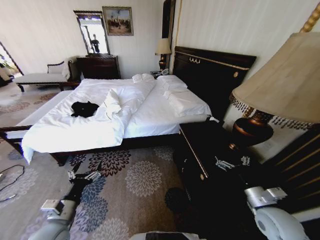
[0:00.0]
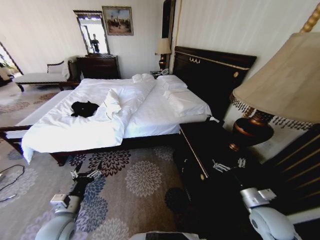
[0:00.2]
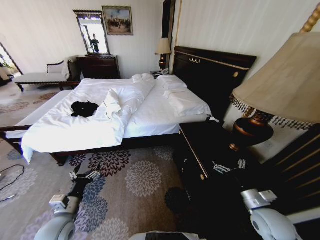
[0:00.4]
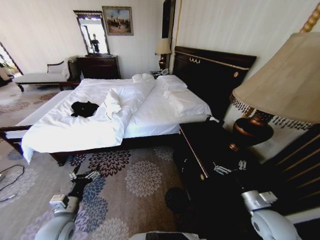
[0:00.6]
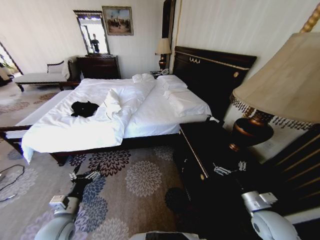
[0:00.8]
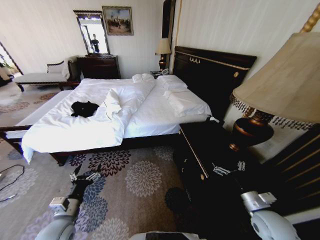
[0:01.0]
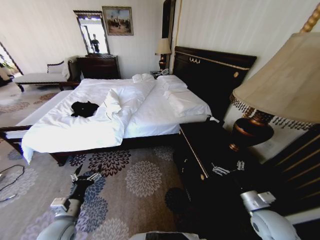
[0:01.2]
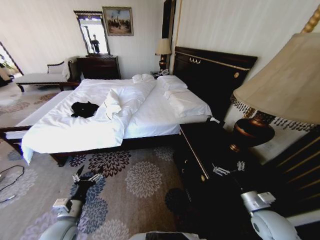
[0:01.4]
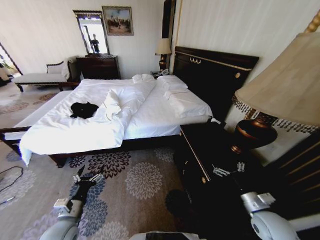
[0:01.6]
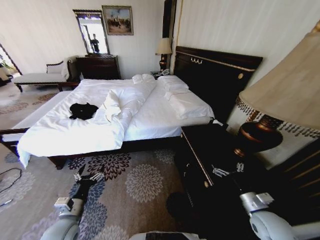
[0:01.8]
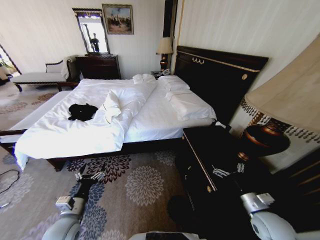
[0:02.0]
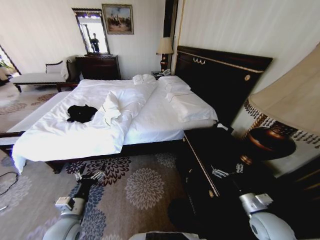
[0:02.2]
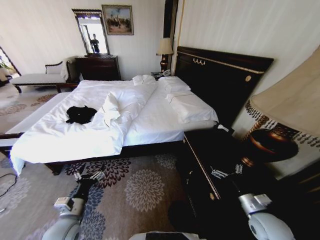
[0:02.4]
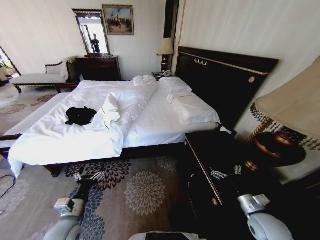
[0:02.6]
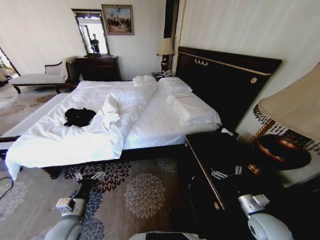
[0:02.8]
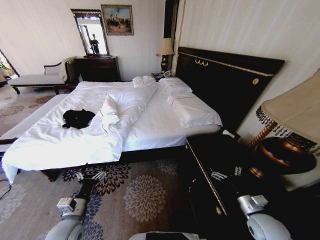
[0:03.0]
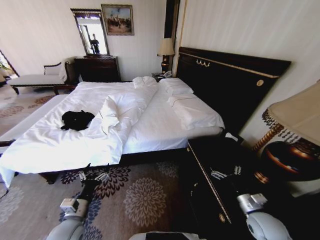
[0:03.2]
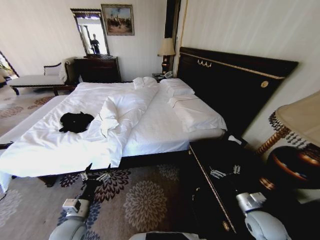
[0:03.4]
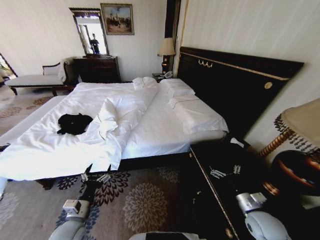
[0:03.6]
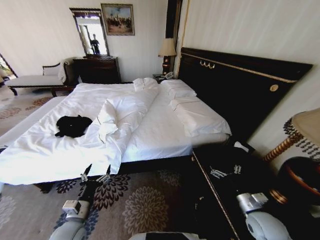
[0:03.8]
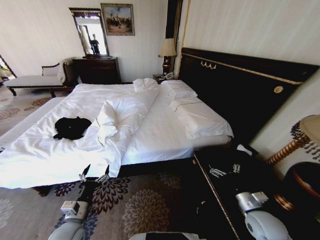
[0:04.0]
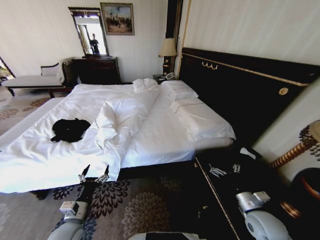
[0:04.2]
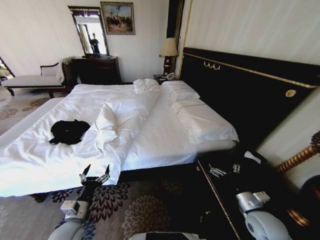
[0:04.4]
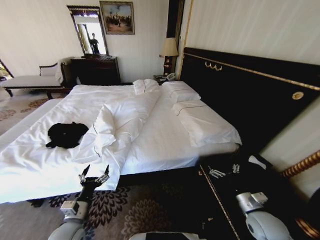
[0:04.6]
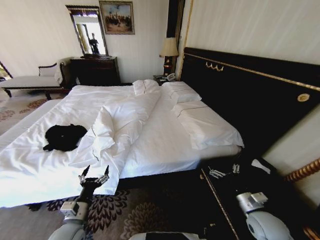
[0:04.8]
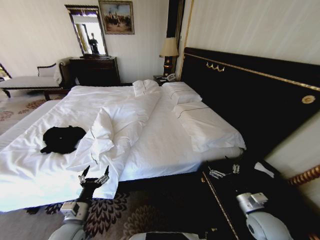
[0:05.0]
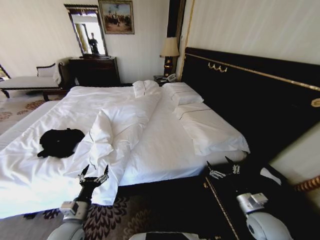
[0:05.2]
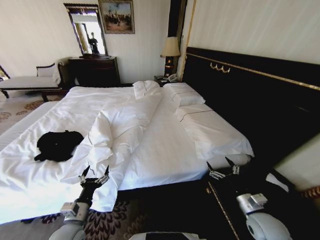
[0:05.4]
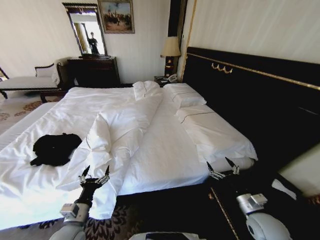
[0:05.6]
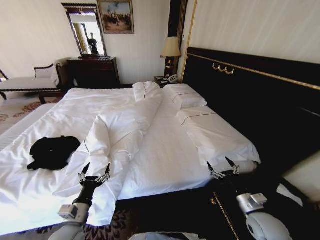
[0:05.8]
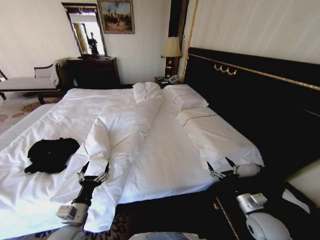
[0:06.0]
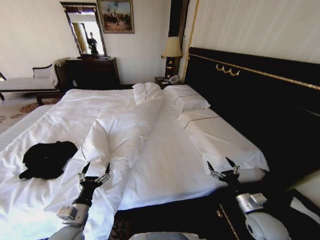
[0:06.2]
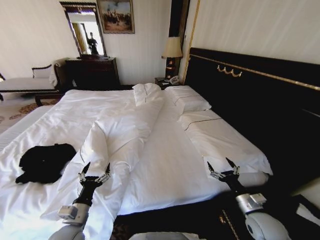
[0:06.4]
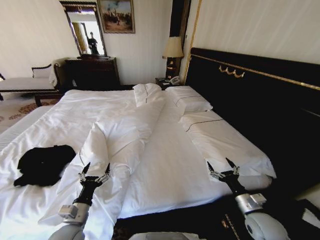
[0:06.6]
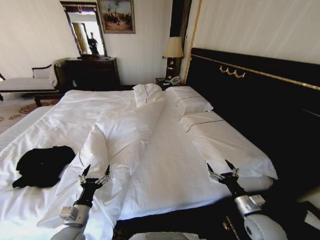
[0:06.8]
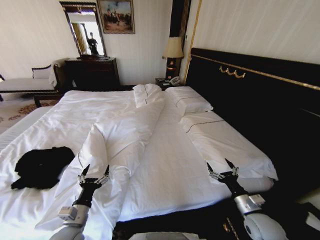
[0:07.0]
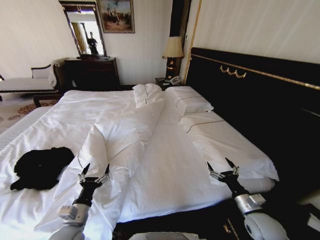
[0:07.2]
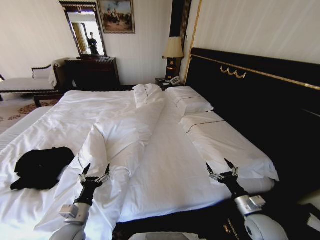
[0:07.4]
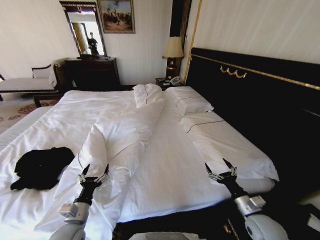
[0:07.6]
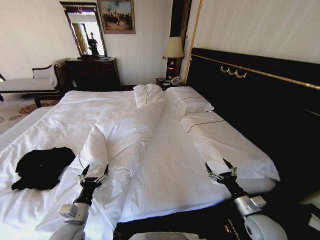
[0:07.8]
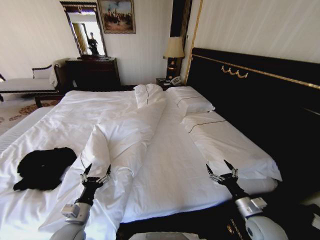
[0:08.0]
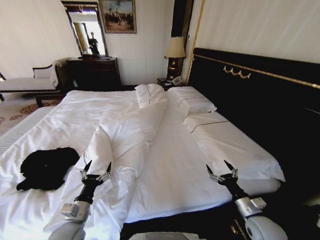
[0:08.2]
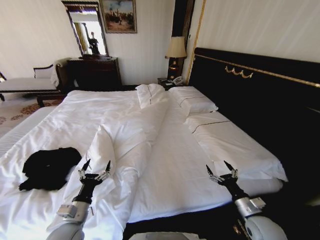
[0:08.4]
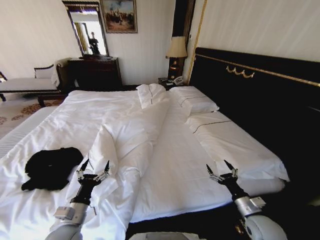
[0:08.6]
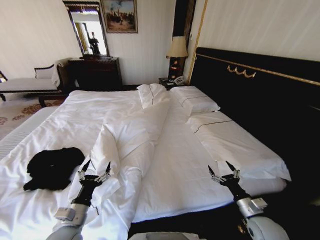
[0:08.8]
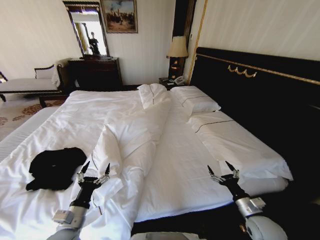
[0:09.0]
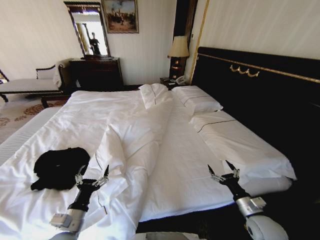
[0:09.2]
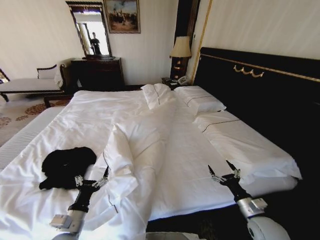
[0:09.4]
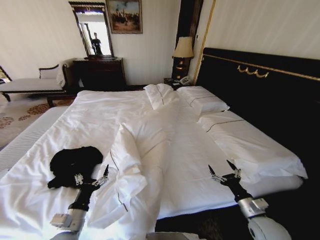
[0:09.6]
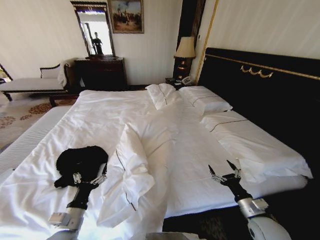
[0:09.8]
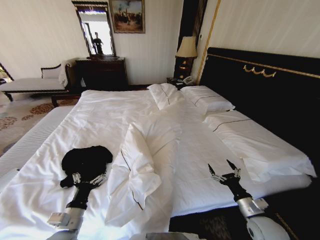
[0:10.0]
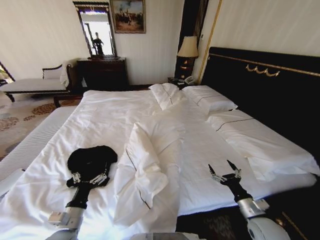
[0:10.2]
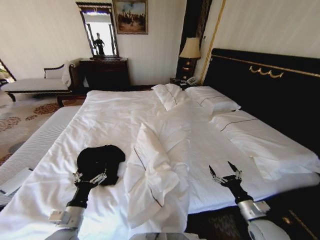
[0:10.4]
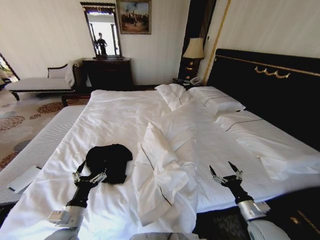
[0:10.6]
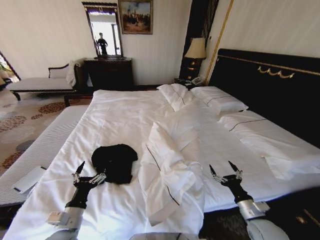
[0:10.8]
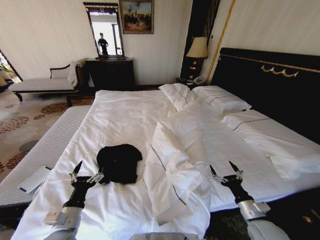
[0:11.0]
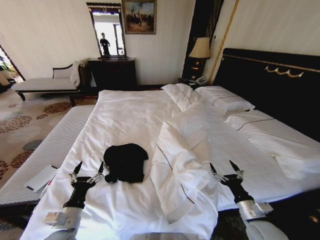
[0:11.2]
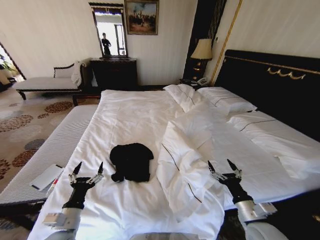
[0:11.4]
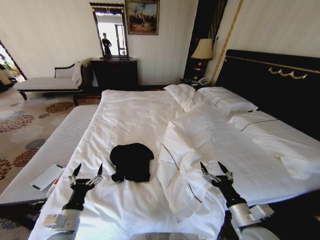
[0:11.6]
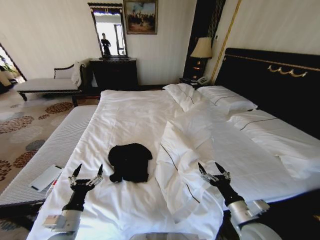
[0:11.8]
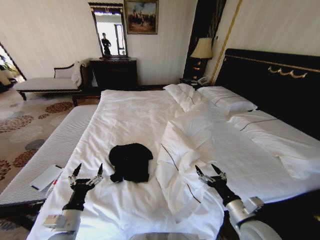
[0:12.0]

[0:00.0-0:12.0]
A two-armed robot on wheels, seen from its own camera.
Task of the whole recording: Fold the clothes on the bed.
0:10.4 to 0:12.0: The right gripper heads to the left and upward, covering approximately 10 cm.

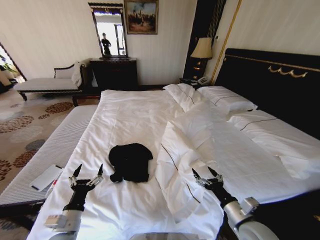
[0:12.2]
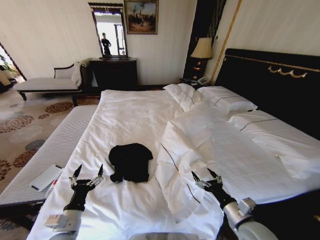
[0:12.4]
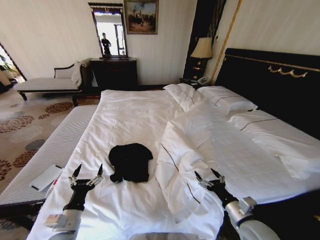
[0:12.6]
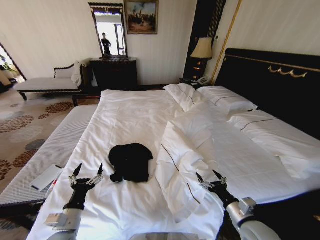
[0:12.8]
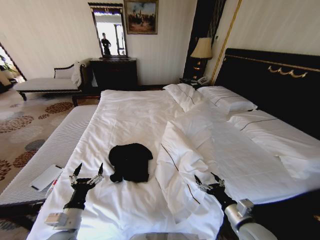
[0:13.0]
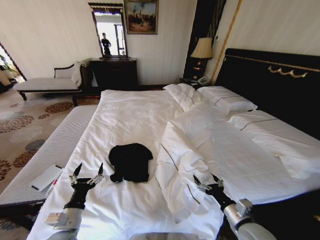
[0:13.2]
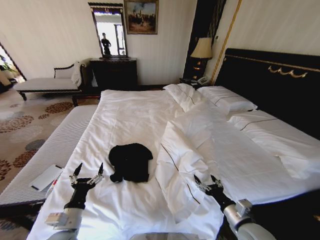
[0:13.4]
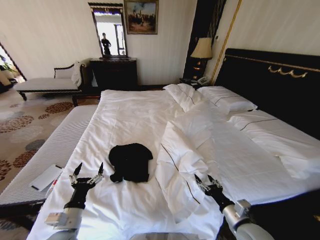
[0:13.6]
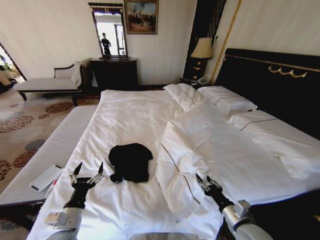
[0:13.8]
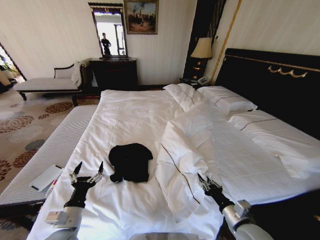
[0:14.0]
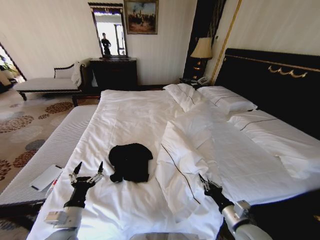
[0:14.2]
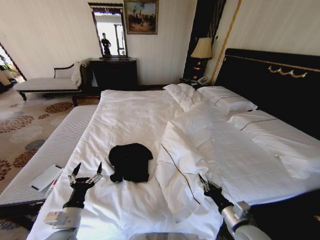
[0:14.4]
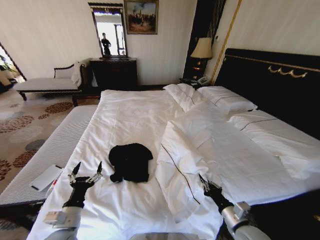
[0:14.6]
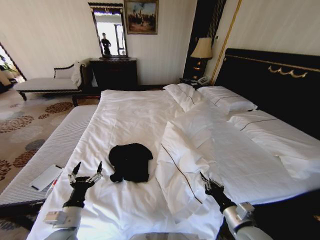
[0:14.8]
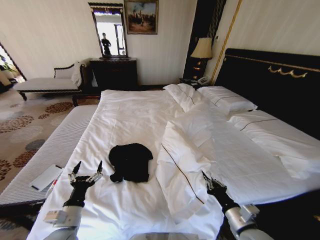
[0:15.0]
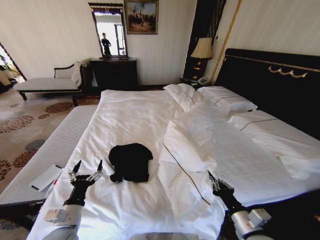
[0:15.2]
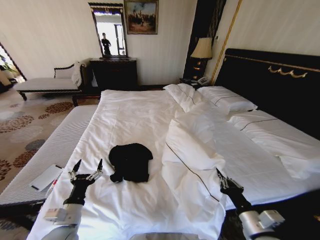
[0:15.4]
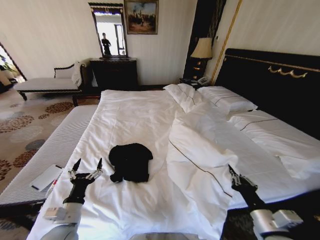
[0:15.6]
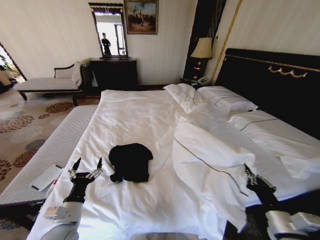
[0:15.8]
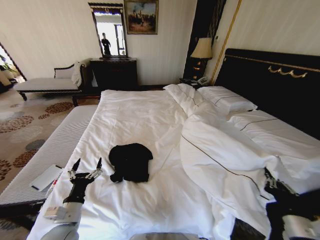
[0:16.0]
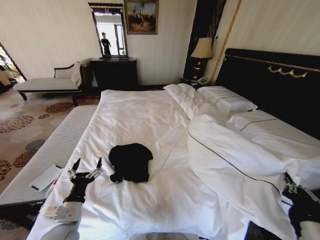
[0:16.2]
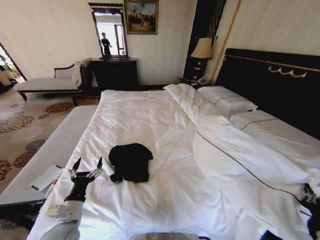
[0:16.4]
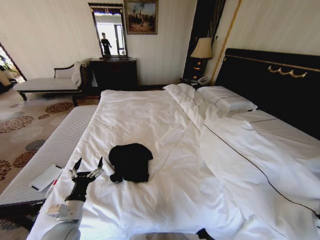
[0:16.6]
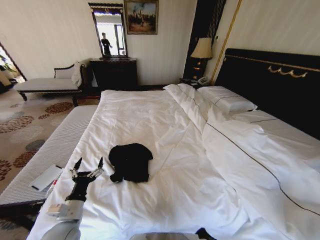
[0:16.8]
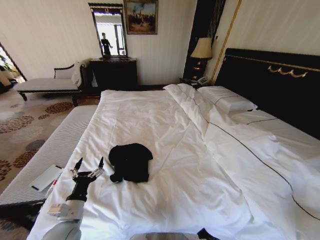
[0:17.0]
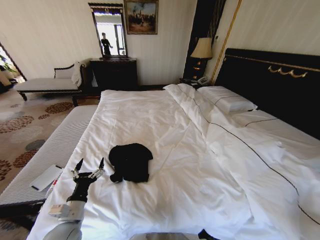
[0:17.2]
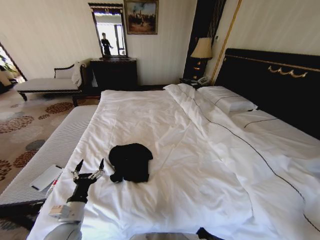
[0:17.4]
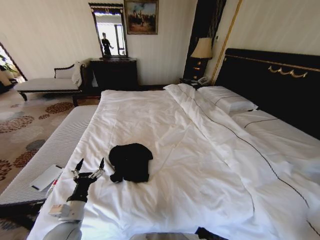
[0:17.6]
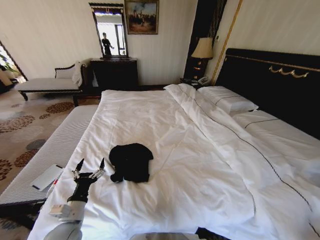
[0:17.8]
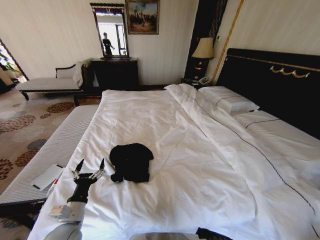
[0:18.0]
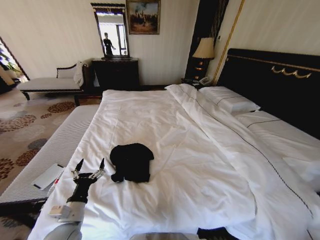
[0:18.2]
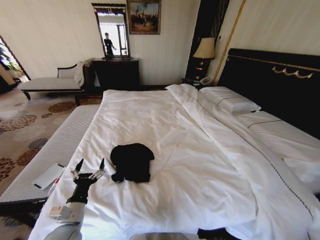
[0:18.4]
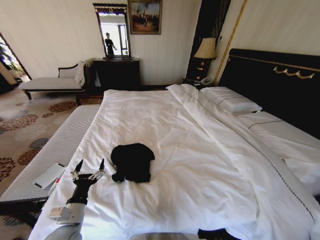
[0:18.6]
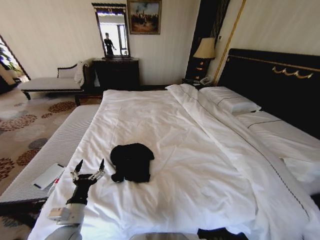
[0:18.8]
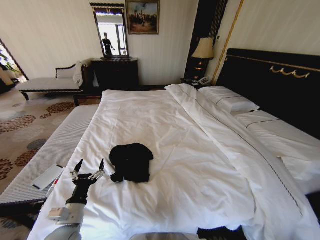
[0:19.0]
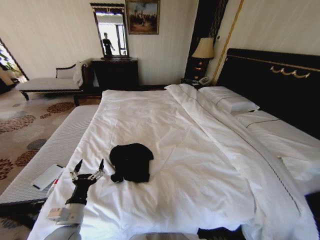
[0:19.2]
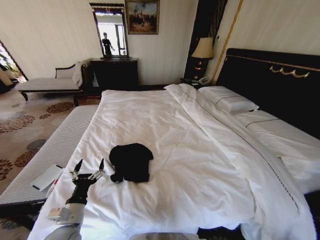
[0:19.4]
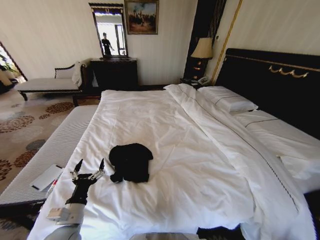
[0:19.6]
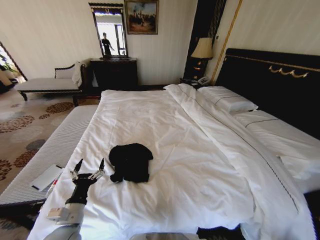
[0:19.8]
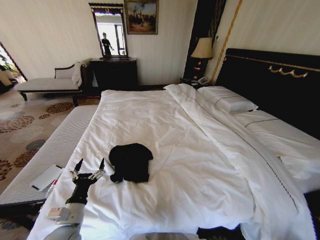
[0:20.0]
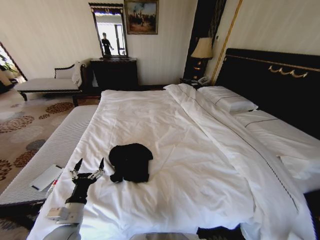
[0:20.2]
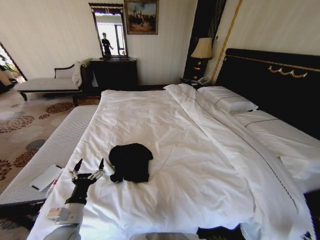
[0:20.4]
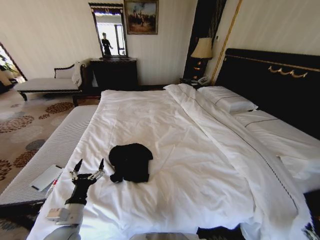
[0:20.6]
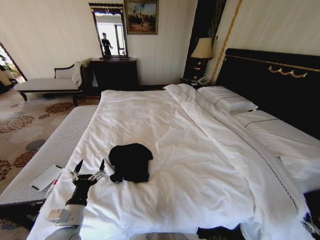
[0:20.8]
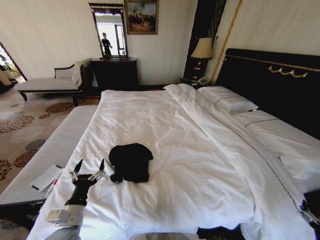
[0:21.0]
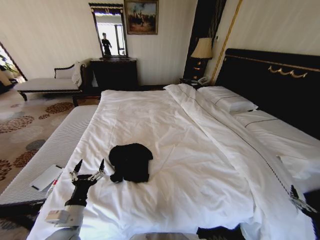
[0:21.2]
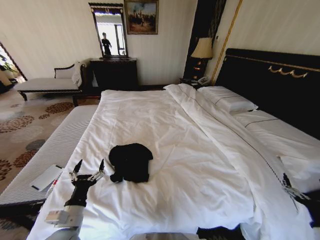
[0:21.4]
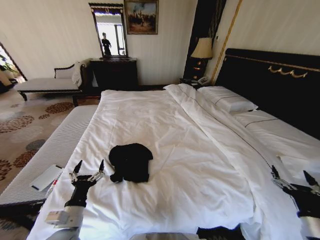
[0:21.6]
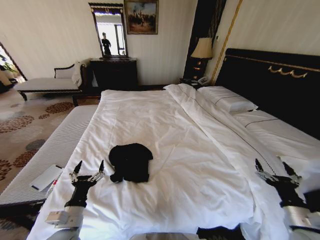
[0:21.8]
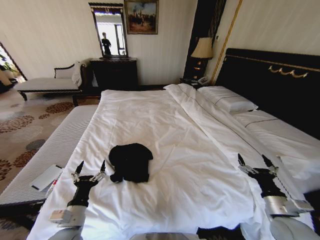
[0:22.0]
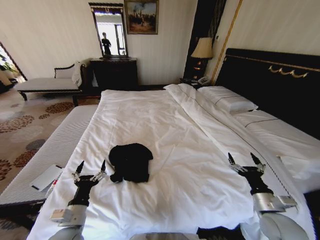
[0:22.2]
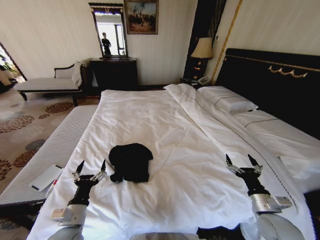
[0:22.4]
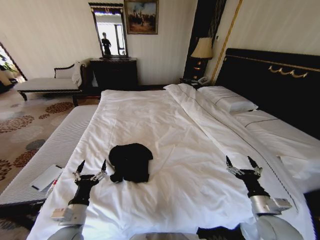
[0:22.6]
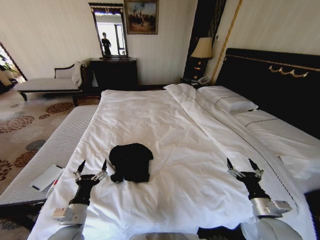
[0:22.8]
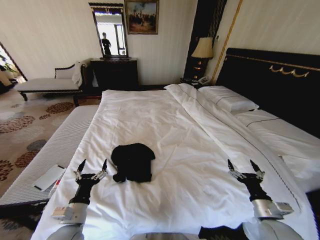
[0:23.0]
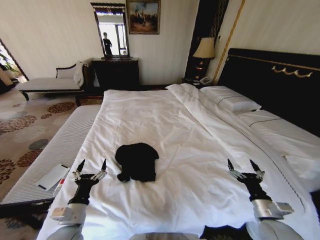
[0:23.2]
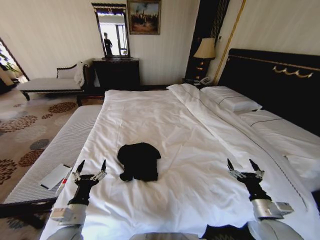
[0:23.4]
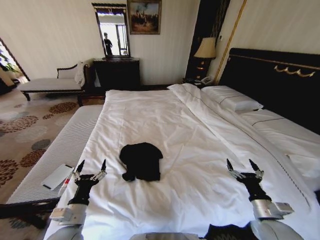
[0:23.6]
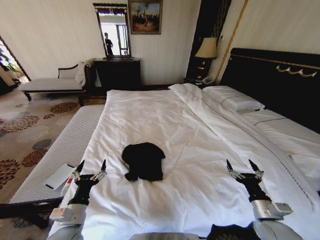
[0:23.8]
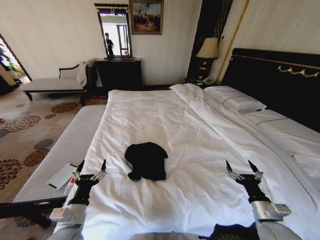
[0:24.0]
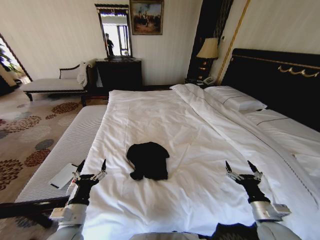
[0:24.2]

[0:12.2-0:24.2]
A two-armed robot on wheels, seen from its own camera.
Task of the whole recording: Fold the clothes on the bed.
0:12.2 to 0:13.8: The right gripper closes.
0:13.8 to 0:15.2: The right gripper closes up.
0:15.2 to 0:16.6: The right gripper is displaced to the right by some 20 cm.
0:16.6 to 0:18.2: The right gripper goes approximately 20 cm downward, to the right and backward.
0:18.2 to 0:19.8: The right gripper heads downward, covering approximately 10 cm, and opens its fingers.
0:19.8 to 0:21.2: The right gripper goes approximately 20 cm upward, and opens up.
0:21.2 to 0:22.6: The right gripper is displaced to the left and forward by roughly 20 cm.
